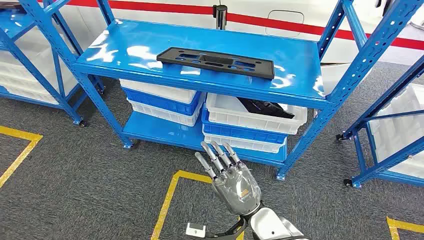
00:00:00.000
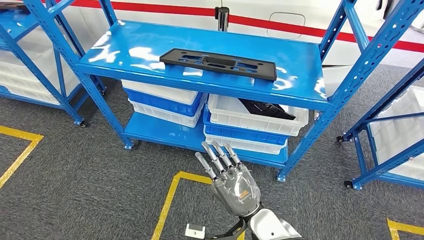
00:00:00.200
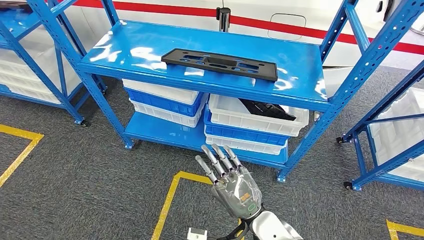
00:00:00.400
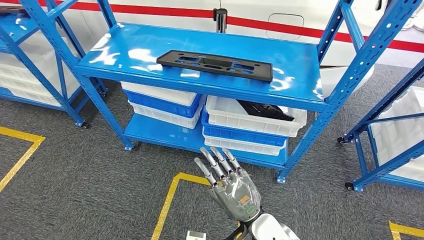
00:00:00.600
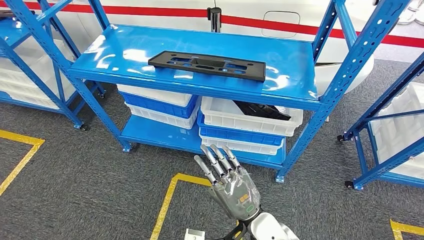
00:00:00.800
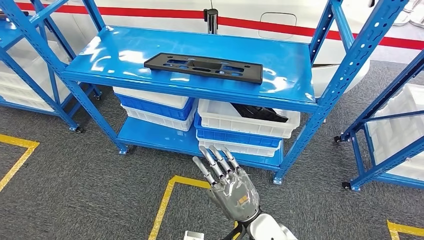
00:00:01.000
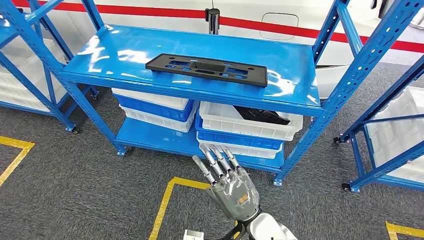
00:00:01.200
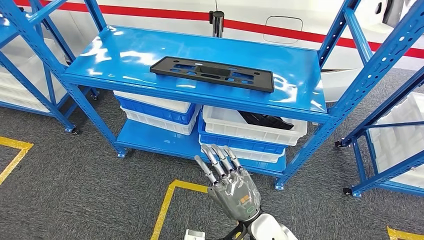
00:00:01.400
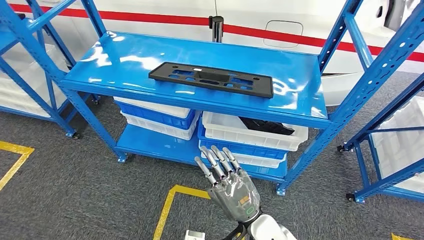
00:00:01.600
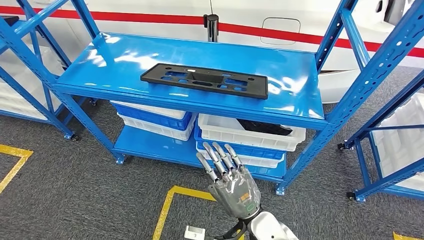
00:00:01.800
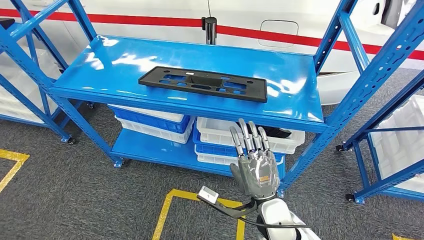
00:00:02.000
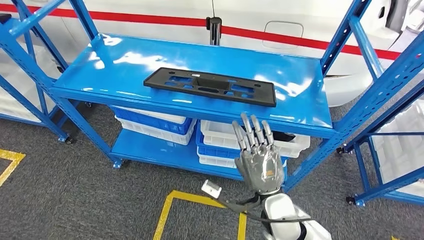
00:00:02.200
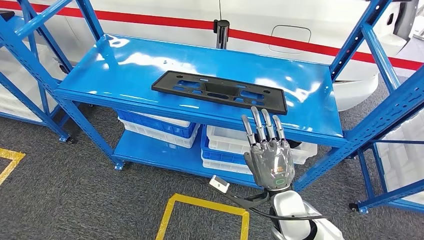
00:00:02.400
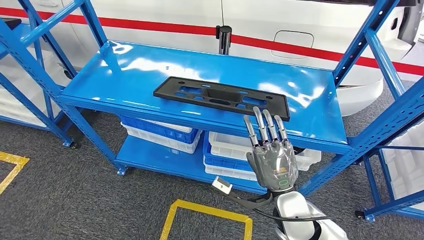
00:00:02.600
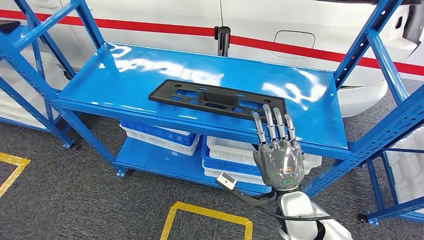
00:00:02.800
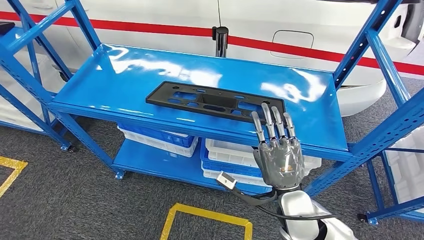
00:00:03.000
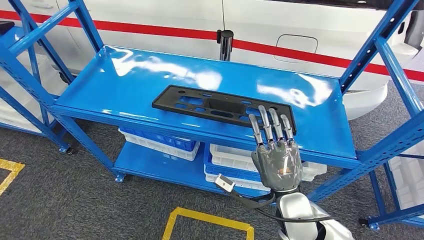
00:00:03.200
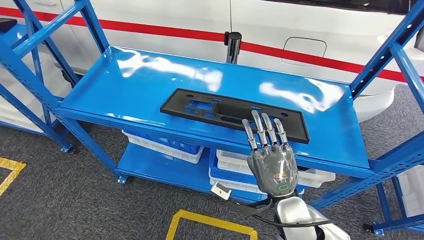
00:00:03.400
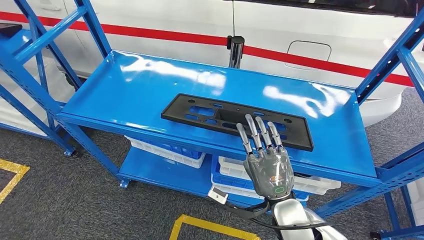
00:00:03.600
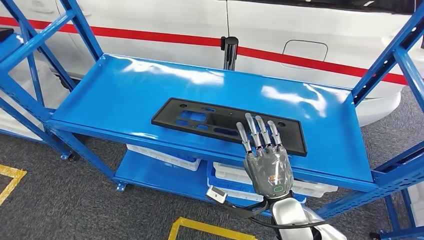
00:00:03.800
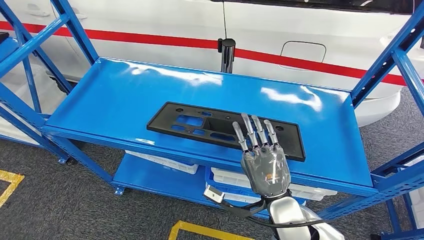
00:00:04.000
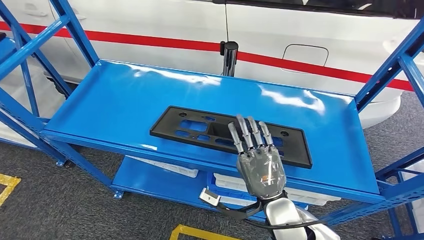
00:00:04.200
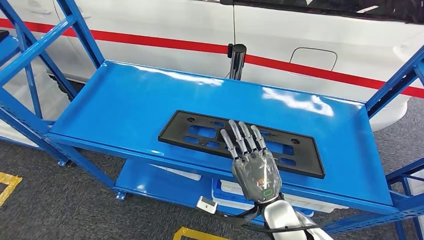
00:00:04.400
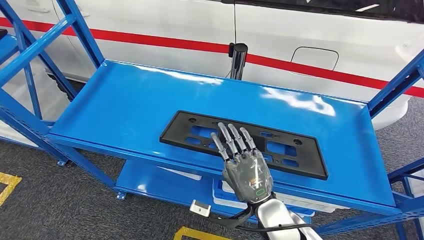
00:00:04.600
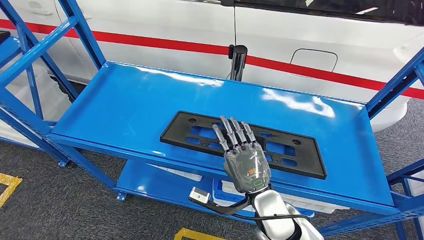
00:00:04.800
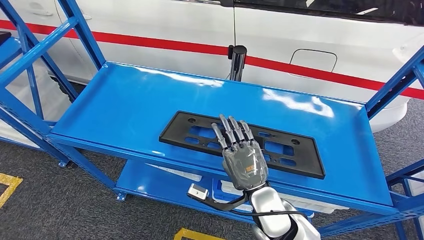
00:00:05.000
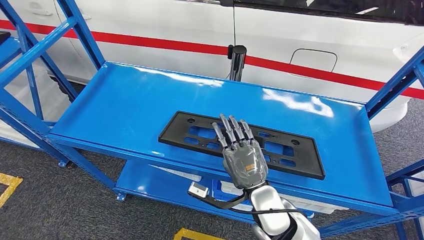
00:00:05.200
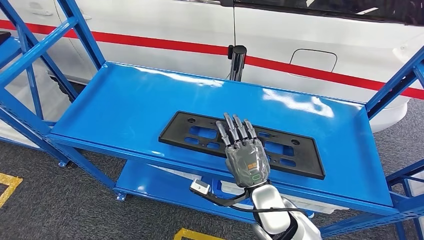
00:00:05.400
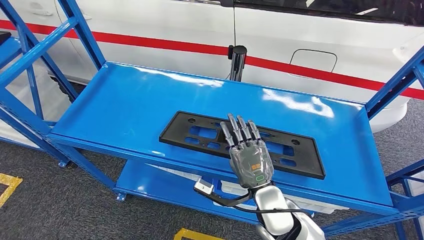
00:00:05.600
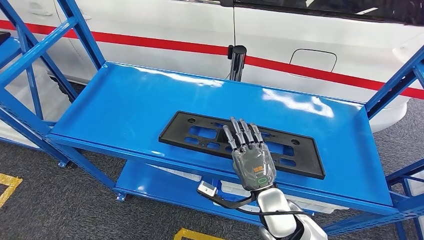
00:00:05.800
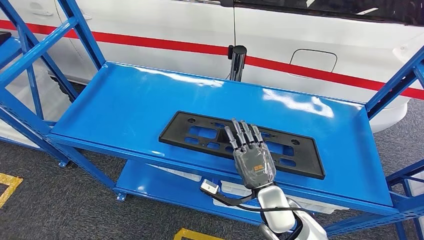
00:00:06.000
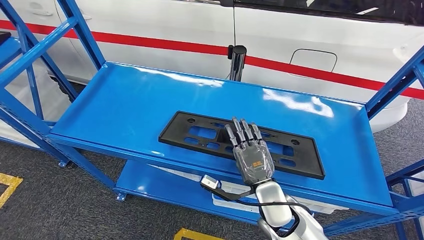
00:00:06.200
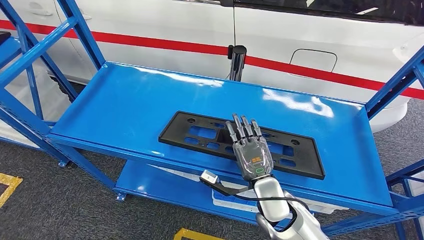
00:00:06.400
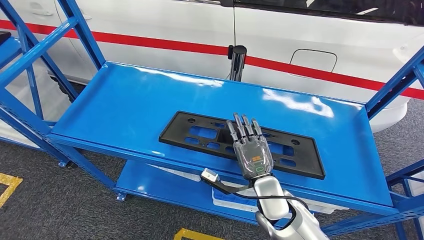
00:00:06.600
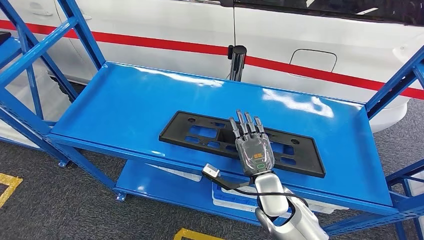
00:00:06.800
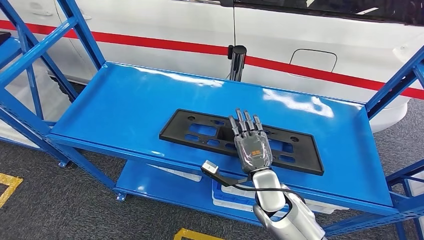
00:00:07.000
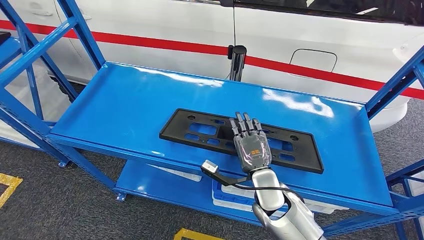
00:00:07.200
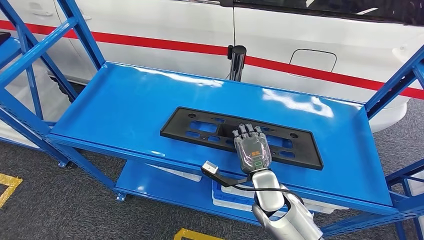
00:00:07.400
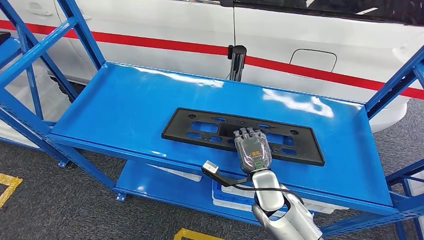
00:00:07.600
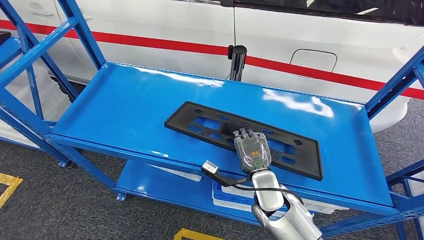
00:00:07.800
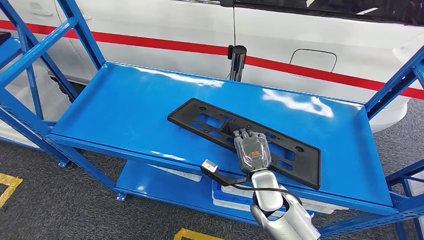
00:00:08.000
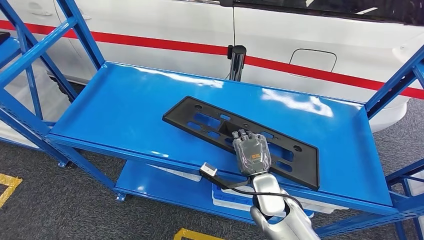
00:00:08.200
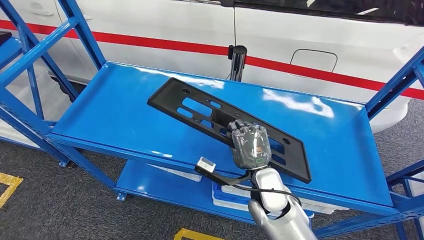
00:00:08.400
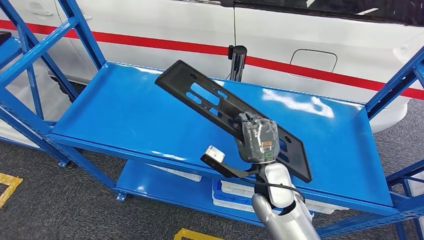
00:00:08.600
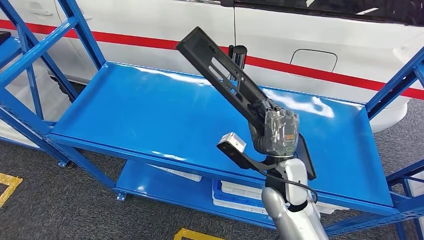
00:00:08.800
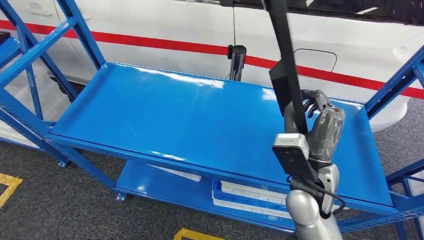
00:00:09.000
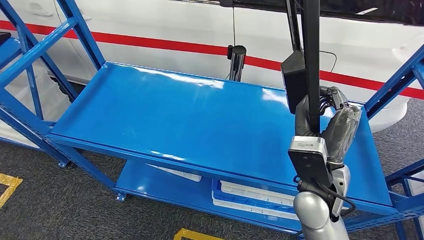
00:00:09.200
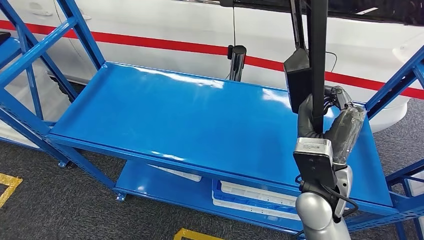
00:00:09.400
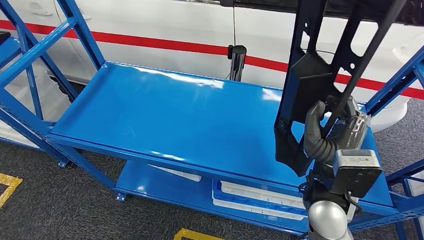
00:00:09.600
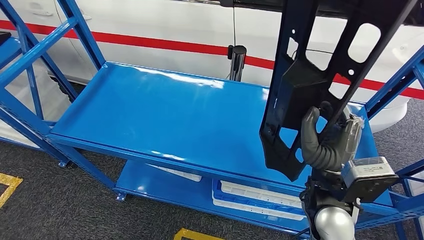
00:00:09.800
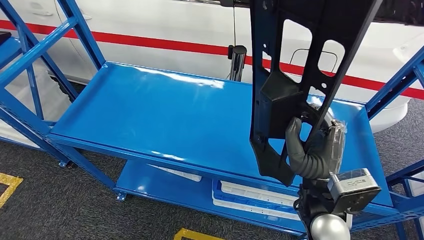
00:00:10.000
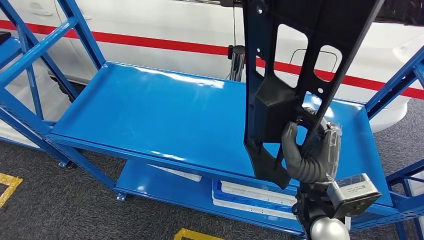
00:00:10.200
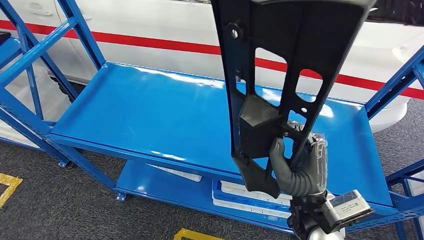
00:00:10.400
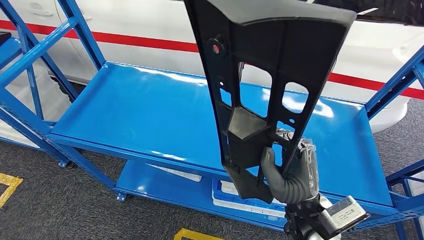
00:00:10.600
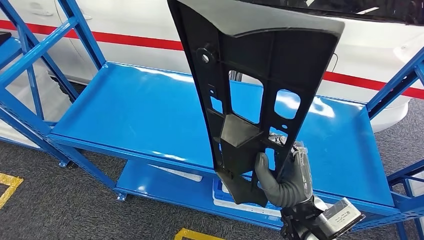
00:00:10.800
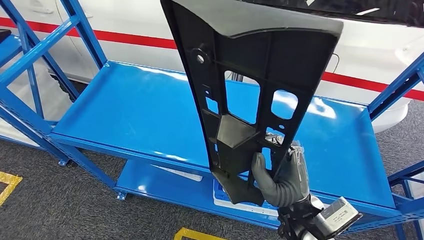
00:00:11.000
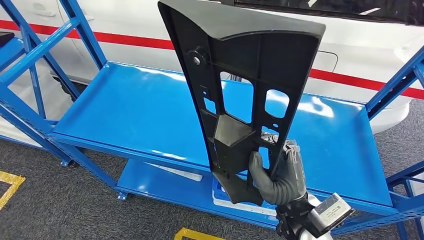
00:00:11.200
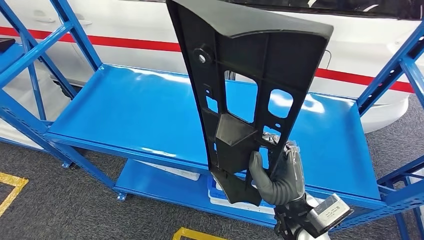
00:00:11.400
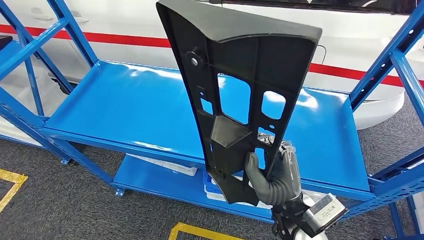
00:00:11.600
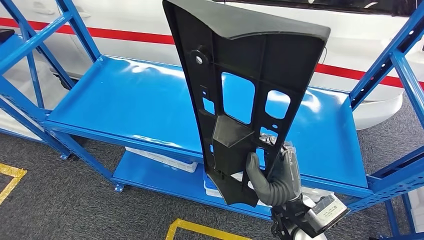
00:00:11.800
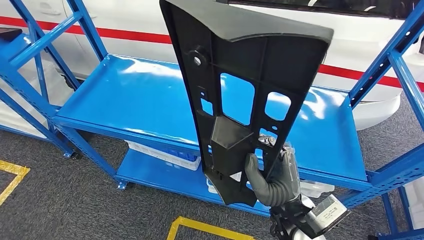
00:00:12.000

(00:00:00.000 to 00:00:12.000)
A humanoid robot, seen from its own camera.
00:00:04.400 - 00:00:06.000: The hands move only a little.
00:00:06.000 - 00:00:07.600: The right hand ends up some 5 cm from where it was.
00:00:07.600 - 00:00:09.000: The right hand shifts roughly 10 cm upward and to the right.

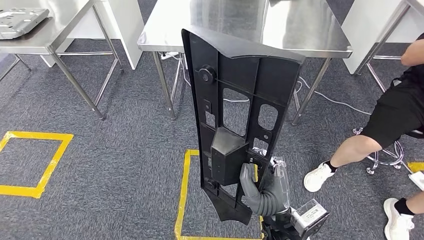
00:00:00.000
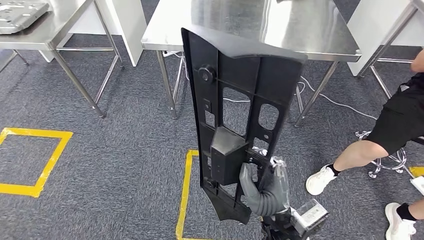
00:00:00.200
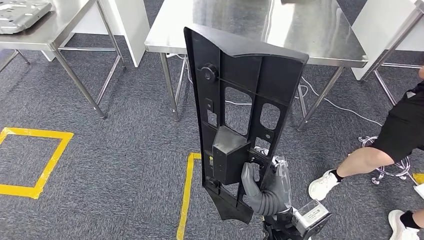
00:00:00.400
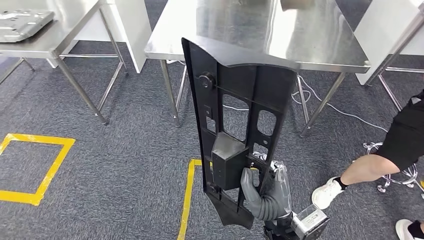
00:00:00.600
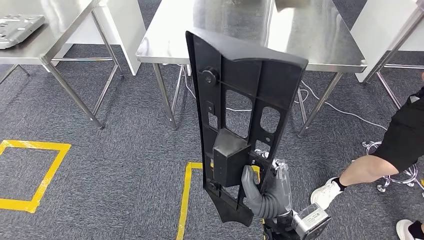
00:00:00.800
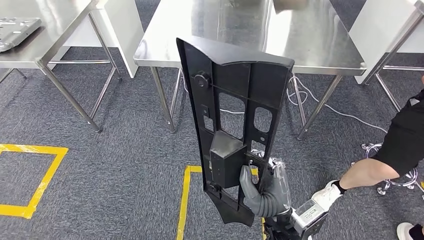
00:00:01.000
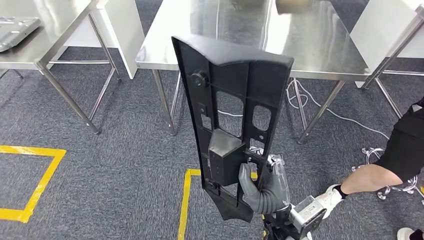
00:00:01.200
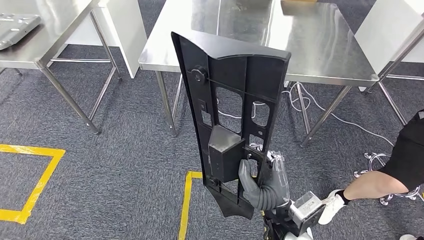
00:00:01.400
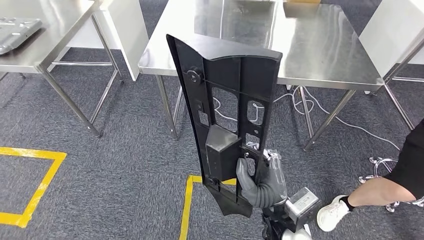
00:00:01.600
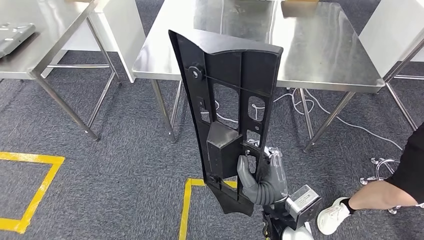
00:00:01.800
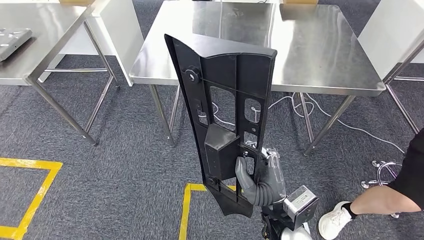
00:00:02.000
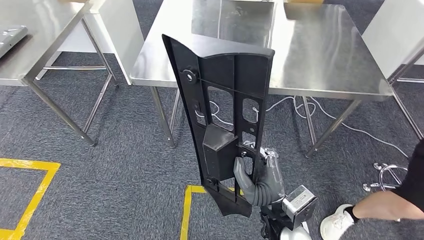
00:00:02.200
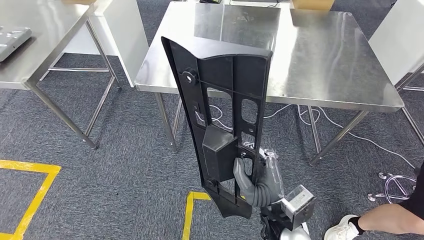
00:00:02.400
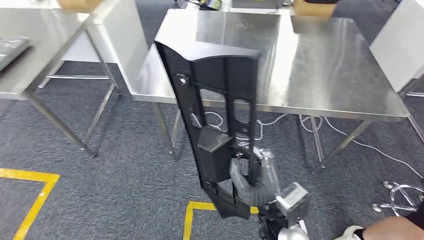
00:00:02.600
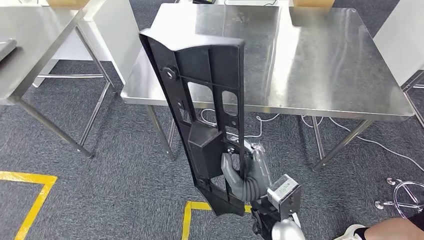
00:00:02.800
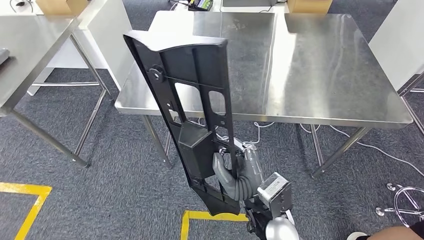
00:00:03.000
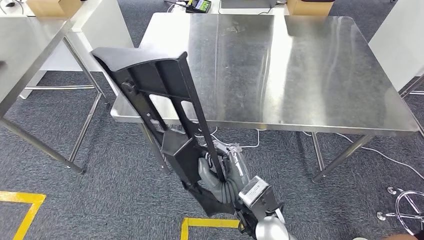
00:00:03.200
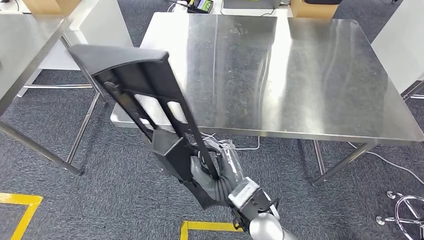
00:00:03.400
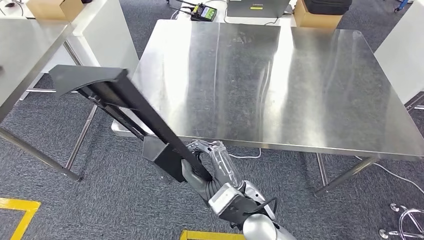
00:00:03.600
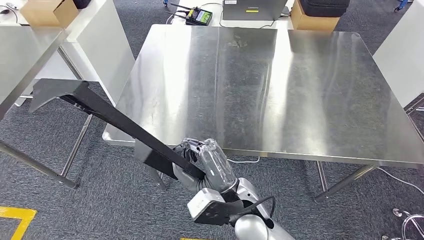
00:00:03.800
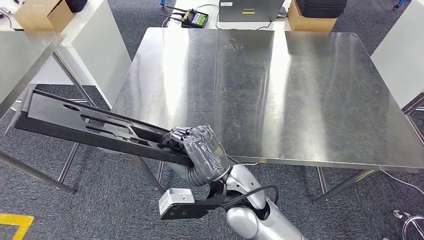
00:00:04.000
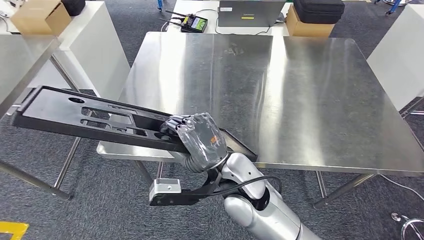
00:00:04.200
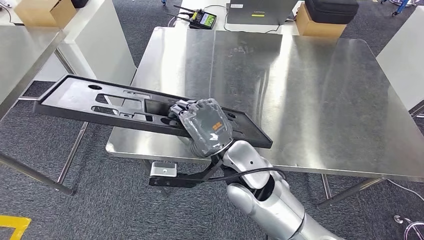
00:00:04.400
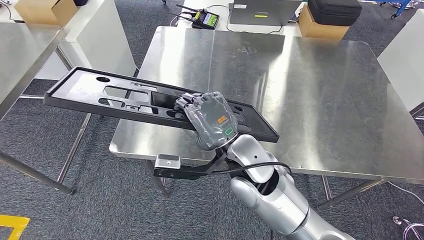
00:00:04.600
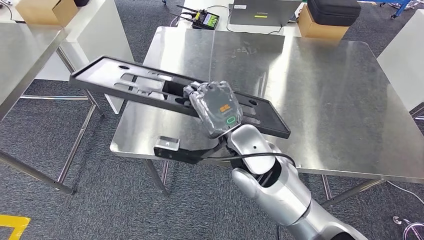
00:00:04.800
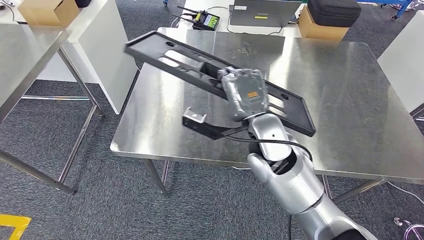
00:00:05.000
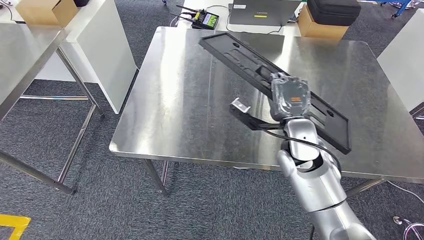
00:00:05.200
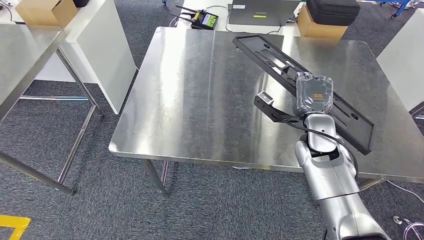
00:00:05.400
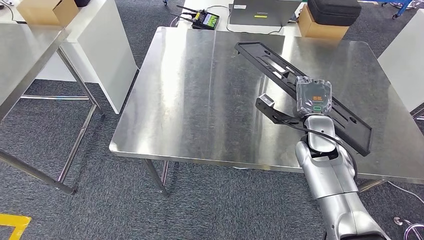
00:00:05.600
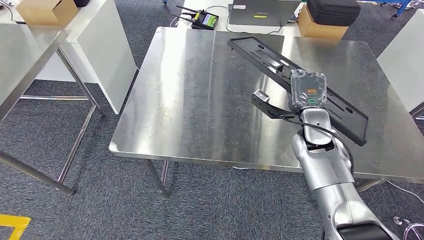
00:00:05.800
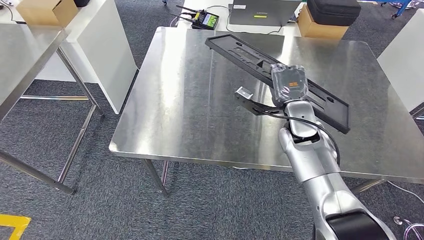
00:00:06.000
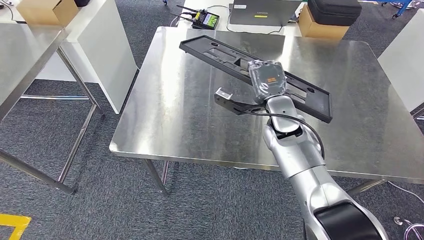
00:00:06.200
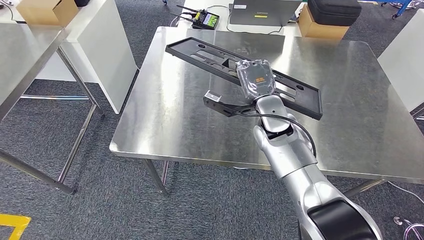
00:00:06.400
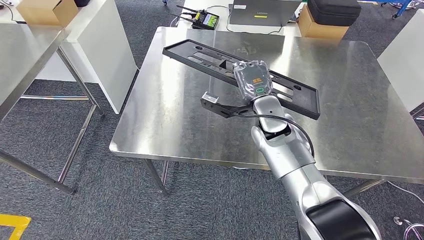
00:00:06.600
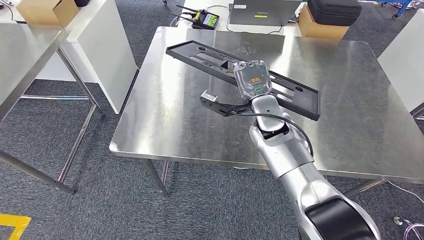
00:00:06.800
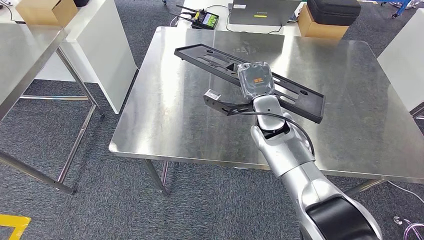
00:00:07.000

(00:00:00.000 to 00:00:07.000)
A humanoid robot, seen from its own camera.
Step, 00:00:00.000 - 00:00:04.200: Move the large material to the workbench.
00:00:05.600 - 00:00:07.000: The right hand shifts some 10 cm to the left.
